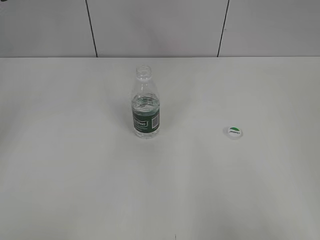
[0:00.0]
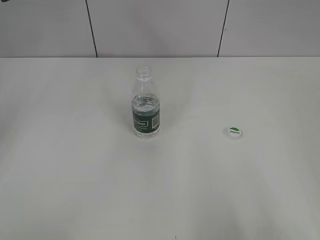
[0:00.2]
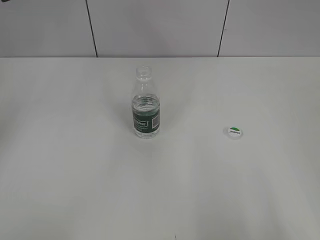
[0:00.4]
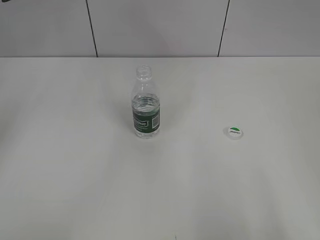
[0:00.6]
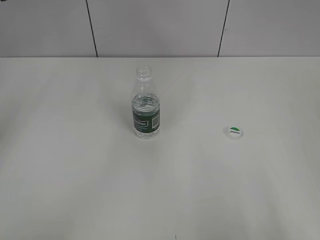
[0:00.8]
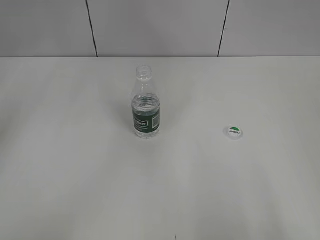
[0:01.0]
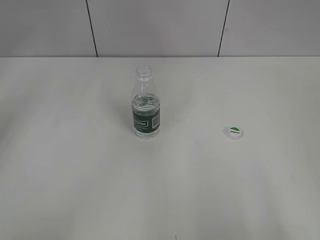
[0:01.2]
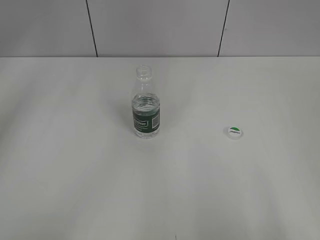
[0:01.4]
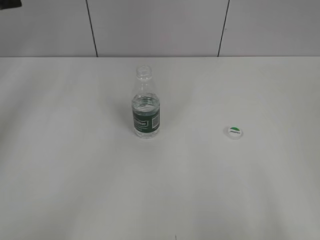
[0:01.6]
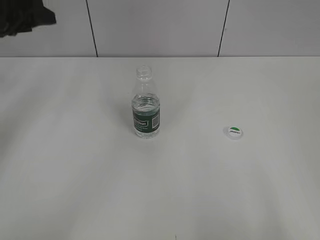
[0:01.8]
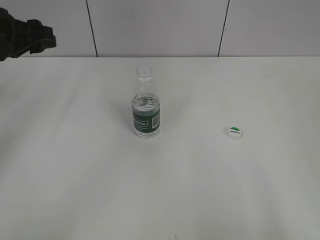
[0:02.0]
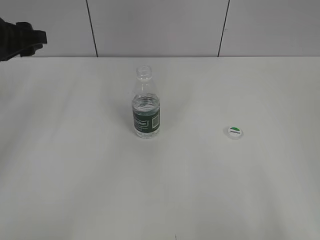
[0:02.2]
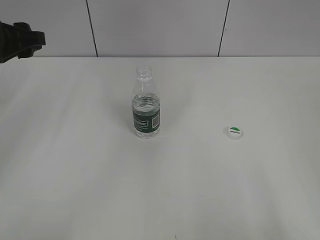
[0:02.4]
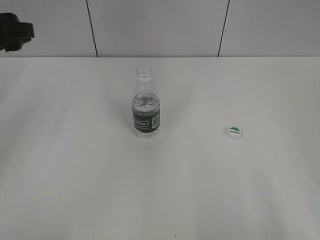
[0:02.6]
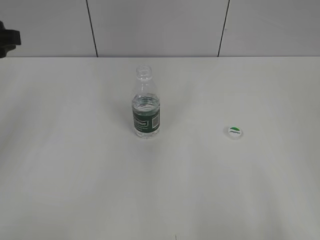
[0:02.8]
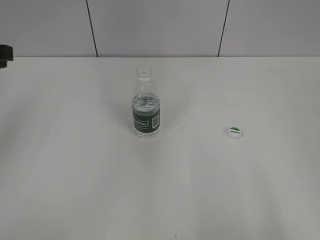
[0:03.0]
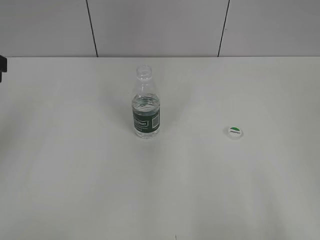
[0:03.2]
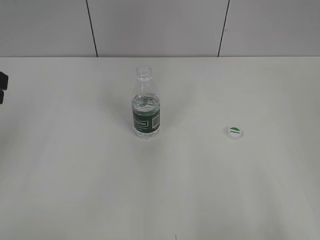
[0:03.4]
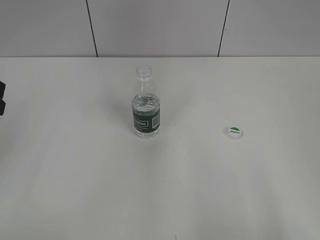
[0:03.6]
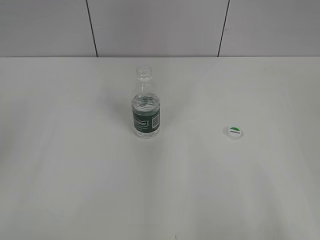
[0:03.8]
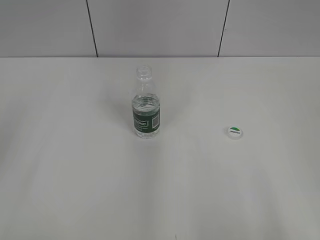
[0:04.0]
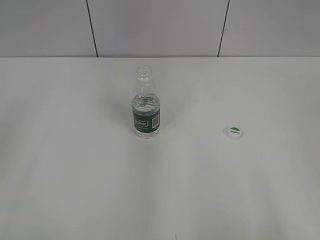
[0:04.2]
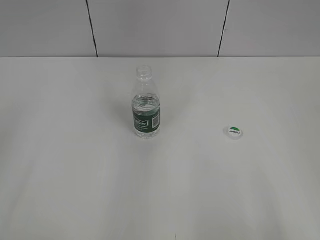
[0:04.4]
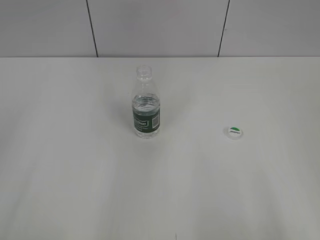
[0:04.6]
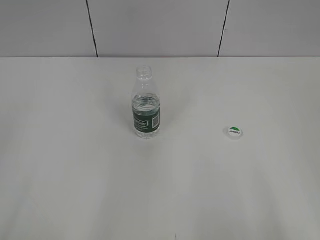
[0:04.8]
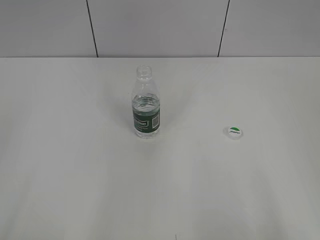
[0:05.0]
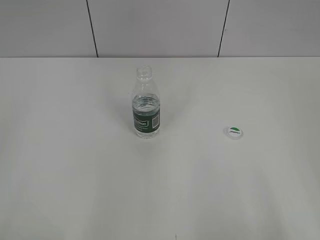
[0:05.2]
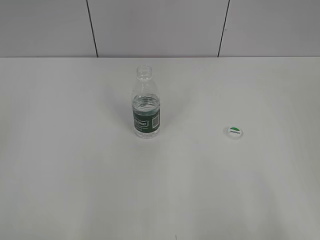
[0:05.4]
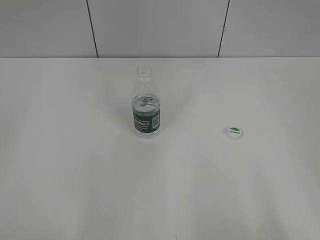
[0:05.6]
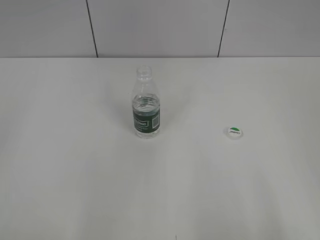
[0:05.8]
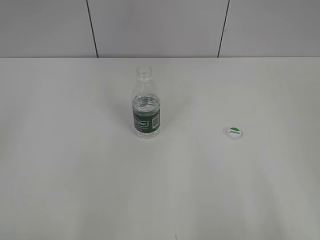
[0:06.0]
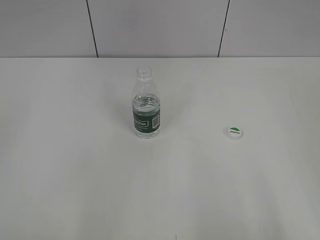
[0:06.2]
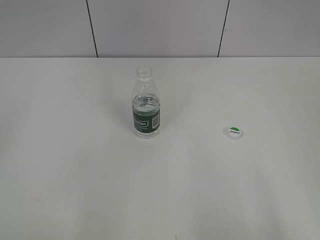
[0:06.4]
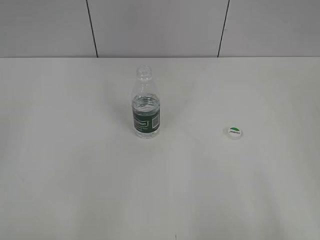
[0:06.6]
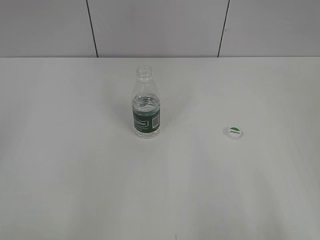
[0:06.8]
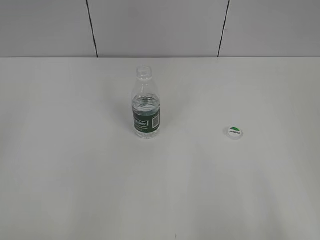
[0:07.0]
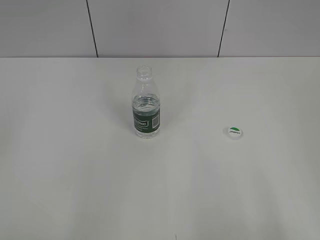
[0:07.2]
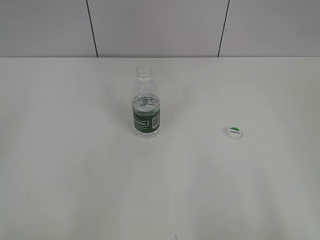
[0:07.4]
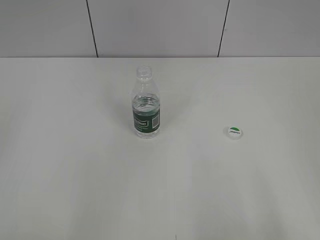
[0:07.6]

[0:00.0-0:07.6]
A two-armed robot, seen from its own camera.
0:06.0 to 0:07.6: The two grippers keep their place.
